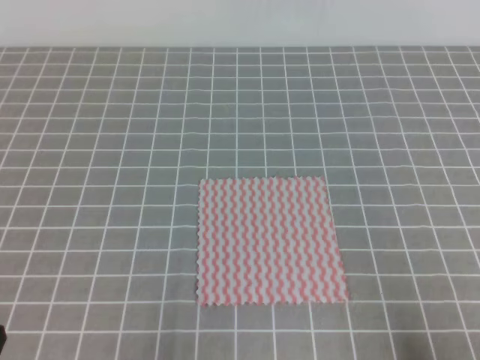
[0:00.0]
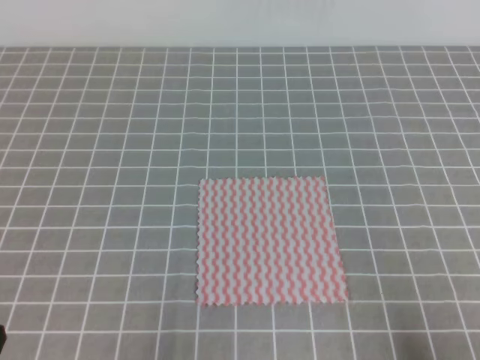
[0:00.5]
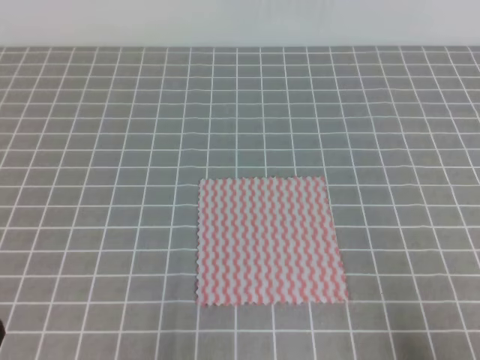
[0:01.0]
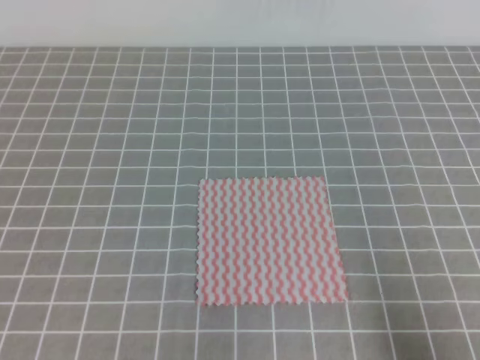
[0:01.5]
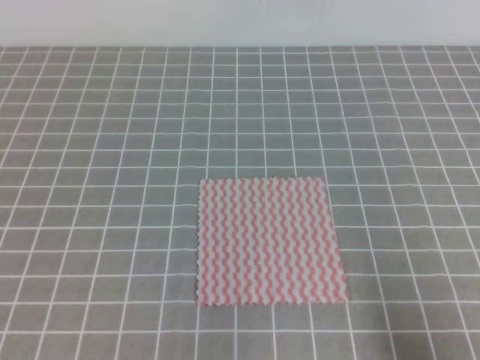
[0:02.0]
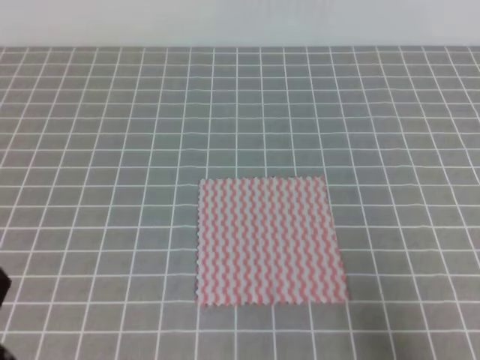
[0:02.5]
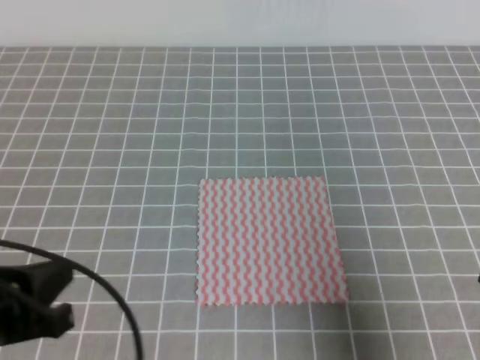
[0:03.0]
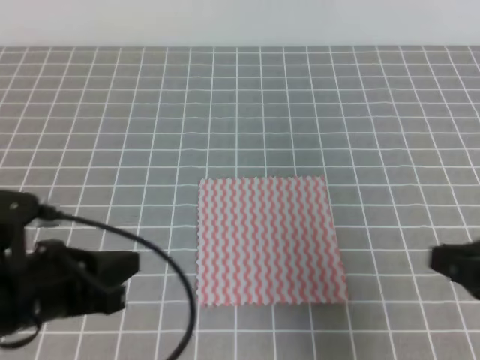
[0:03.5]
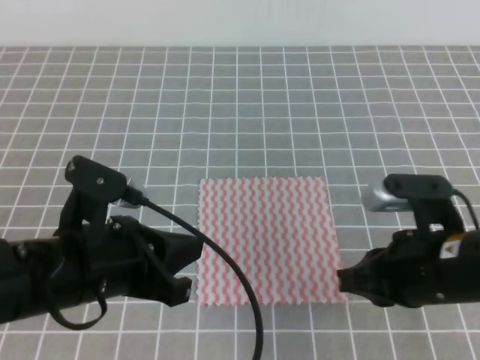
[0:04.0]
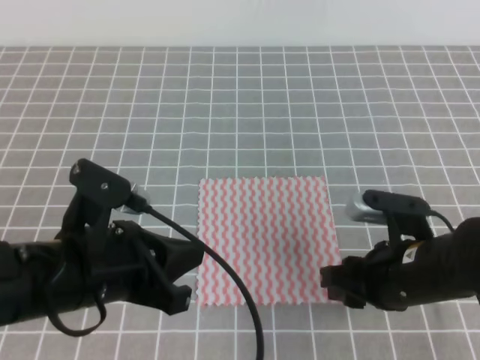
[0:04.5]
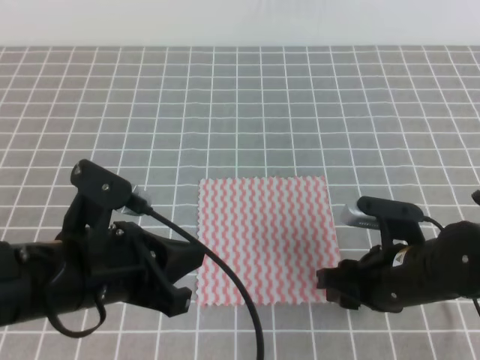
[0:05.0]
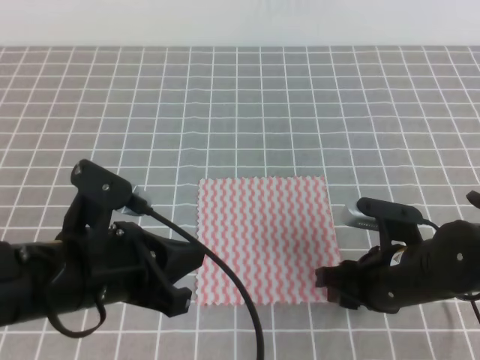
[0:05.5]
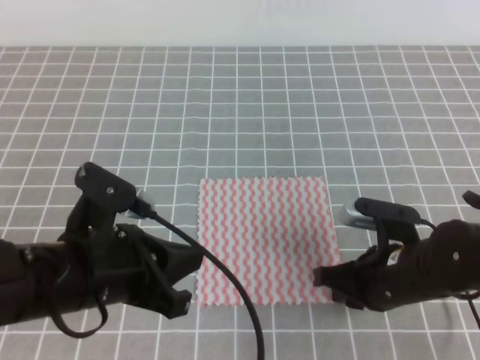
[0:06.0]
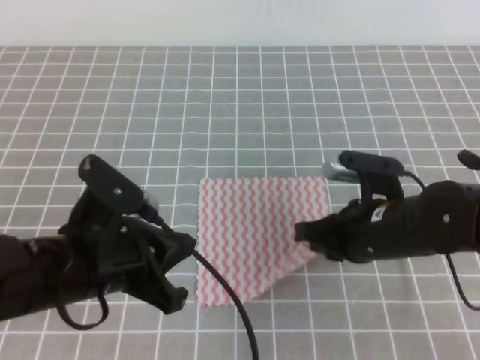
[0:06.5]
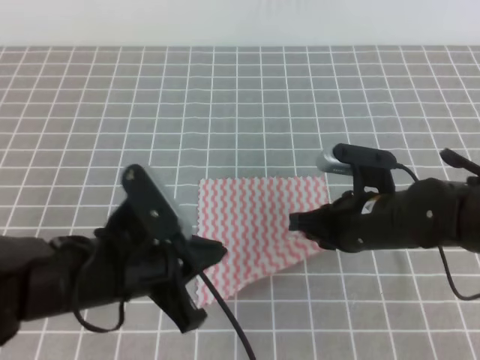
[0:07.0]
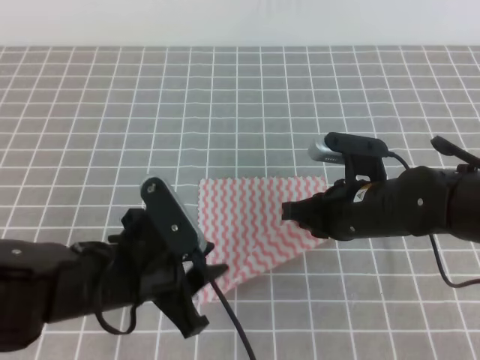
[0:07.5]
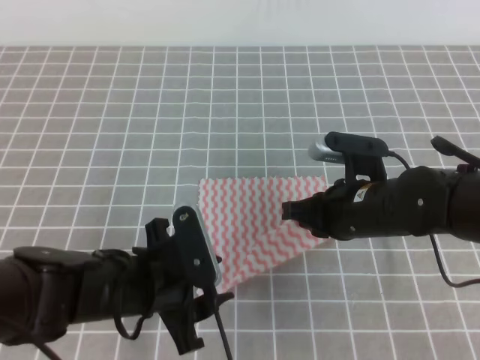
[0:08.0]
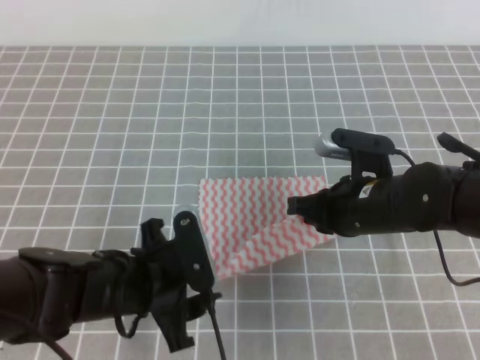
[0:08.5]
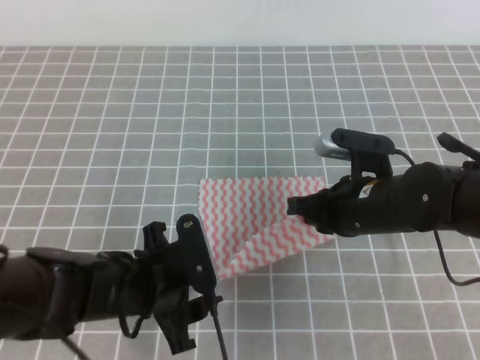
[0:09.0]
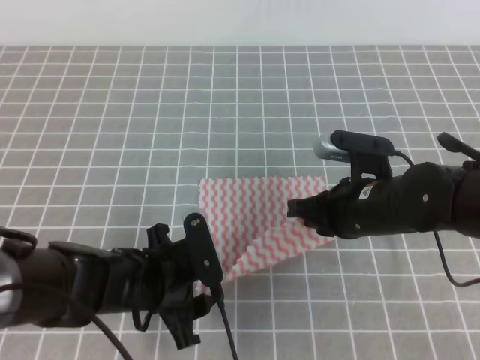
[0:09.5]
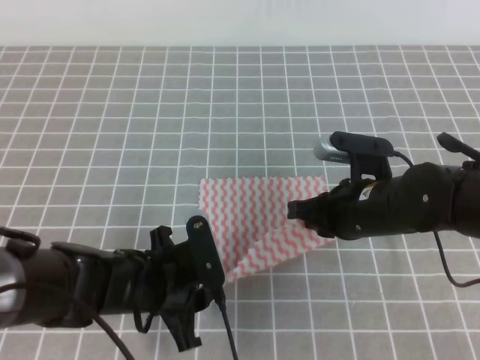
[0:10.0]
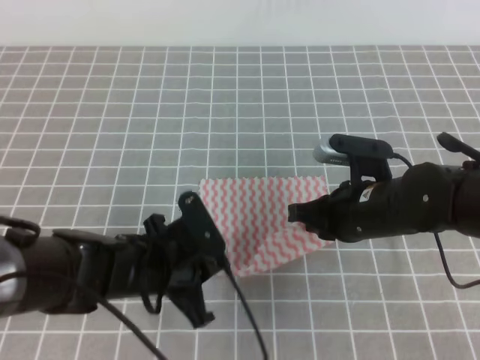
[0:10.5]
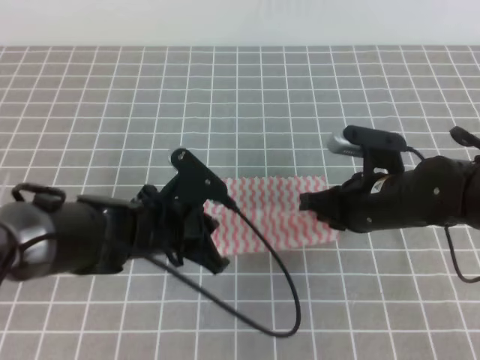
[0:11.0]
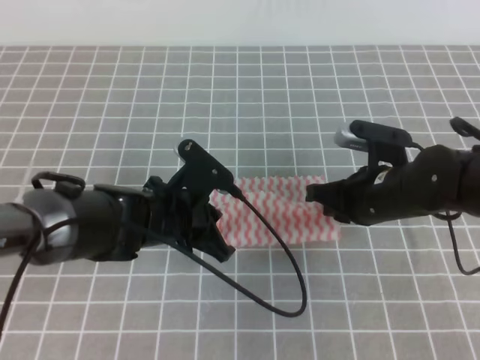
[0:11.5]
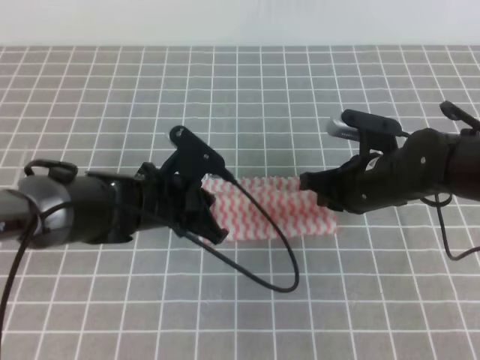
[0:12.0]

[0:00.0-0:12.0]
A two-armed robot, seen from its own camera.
0:02.0 to 0:04.0: The left gripper shifts approximately 20 cm forward and to the right. Meanwhile the right gripper is displaced forward and to the left by about 20 cm.
0:04.0 to 0:06.0: The right gripper moves downward, approximately 10 cm, and opens and closes again.
0:06.0 to 0:08.0: The left gripper is displaced downward by about 5 cm, and opens up. Meanwhile the right gripper shifts roughly 5 cm forward.
0:08.0 to 0:10.0: The left gripper closes its fingers.
0:10.0 to 0:12.0: The left gripper travels forward by roughly 10 cm, and closes its fingers.

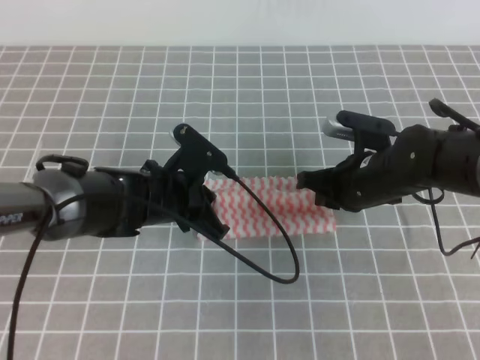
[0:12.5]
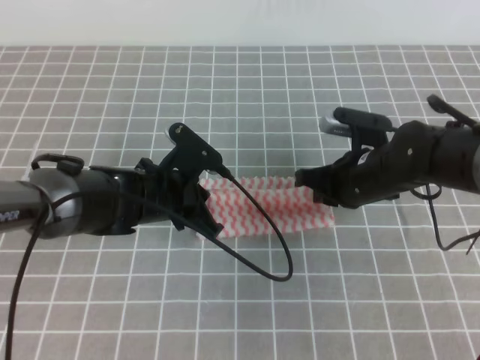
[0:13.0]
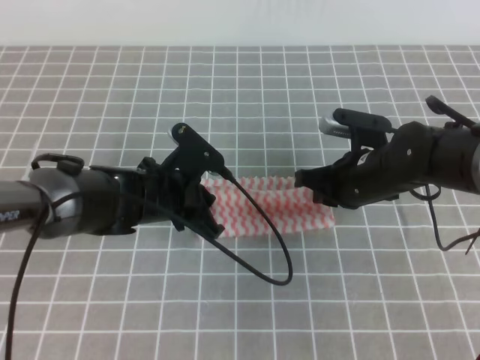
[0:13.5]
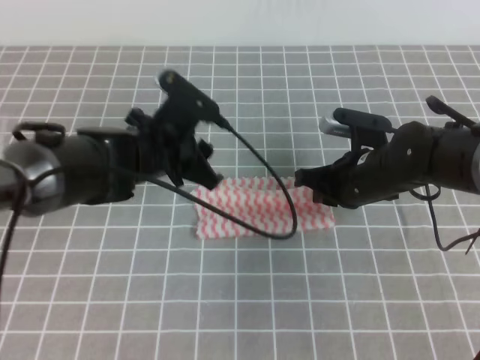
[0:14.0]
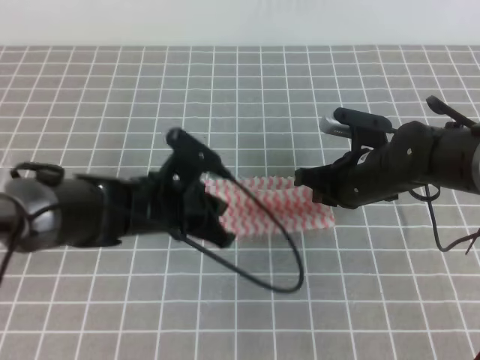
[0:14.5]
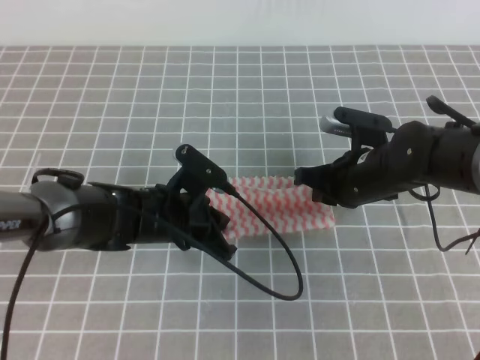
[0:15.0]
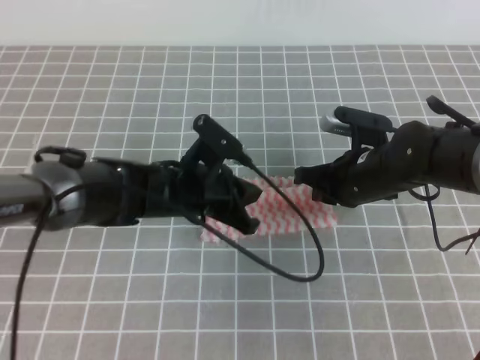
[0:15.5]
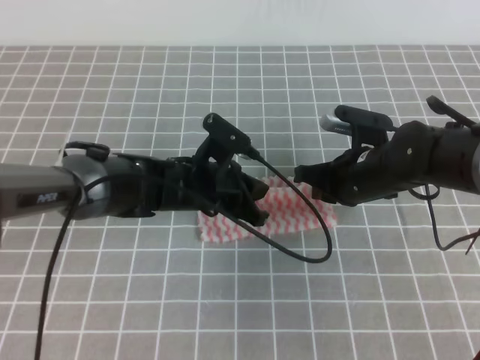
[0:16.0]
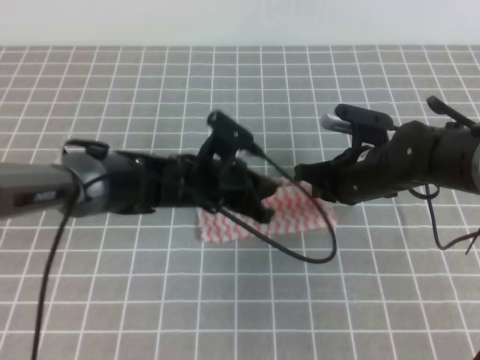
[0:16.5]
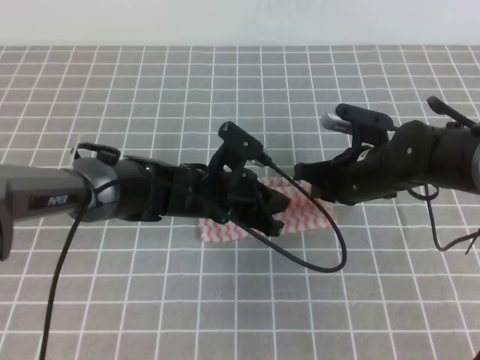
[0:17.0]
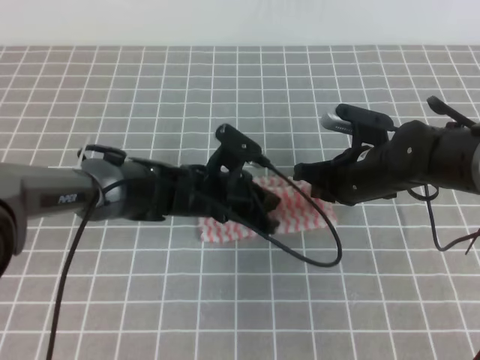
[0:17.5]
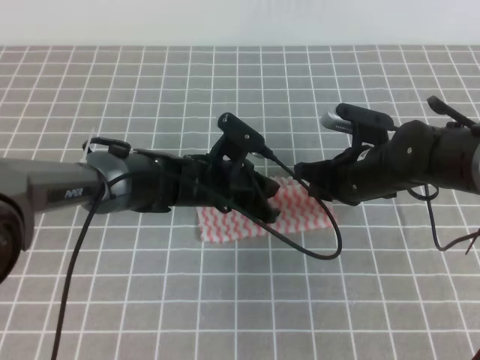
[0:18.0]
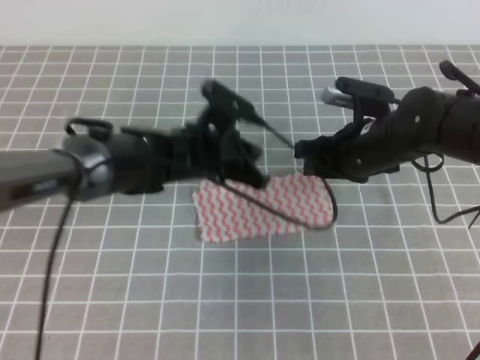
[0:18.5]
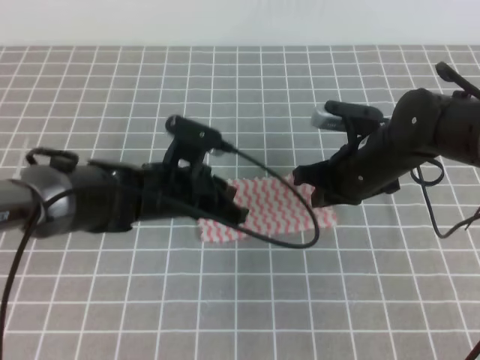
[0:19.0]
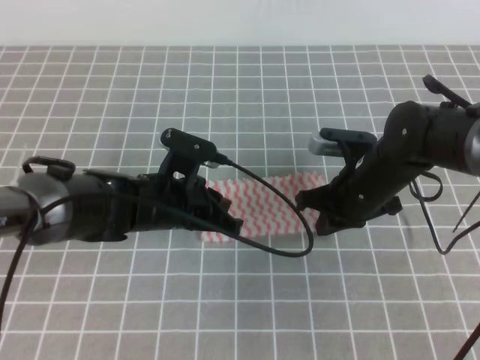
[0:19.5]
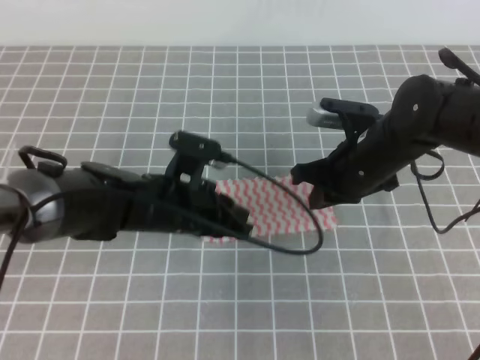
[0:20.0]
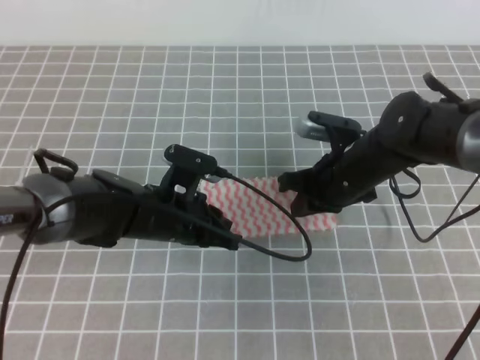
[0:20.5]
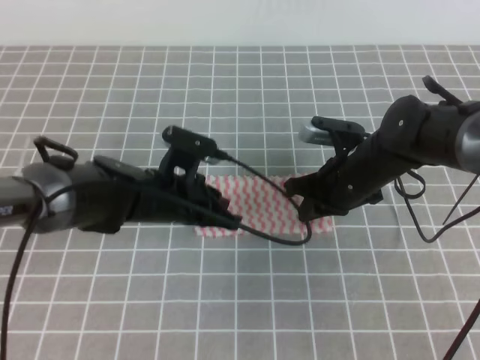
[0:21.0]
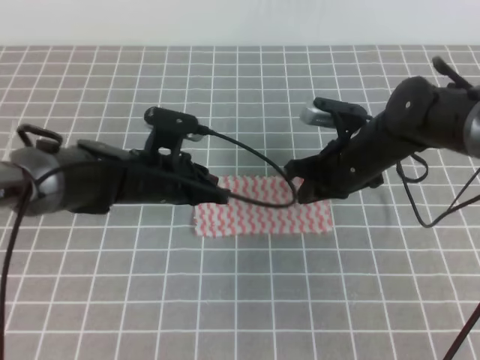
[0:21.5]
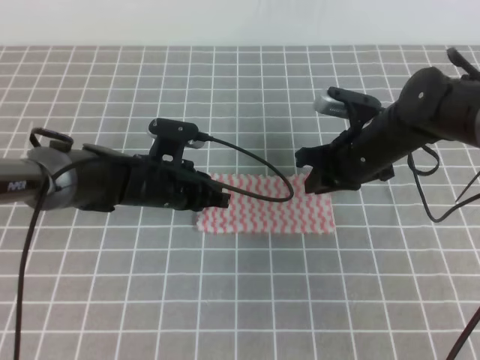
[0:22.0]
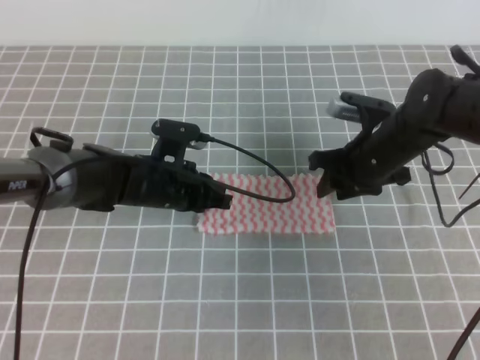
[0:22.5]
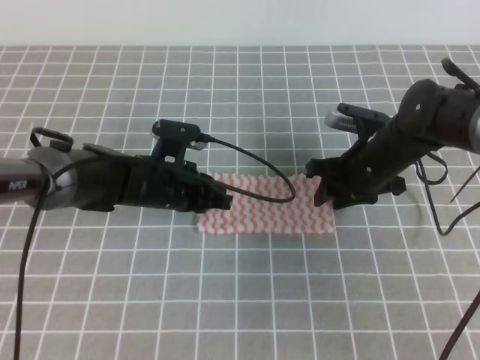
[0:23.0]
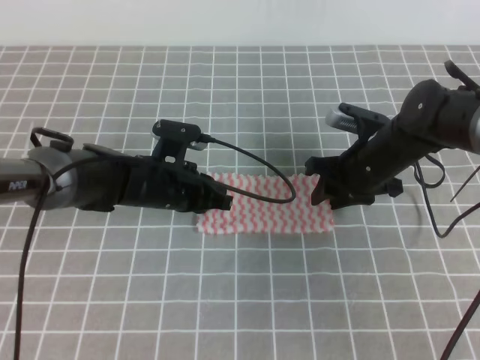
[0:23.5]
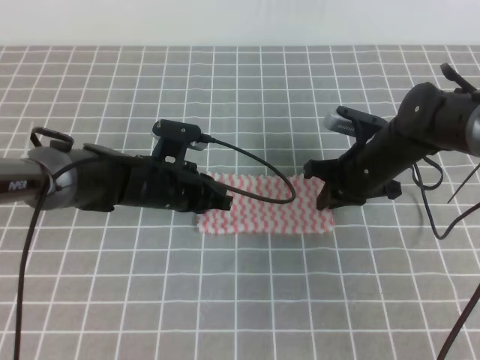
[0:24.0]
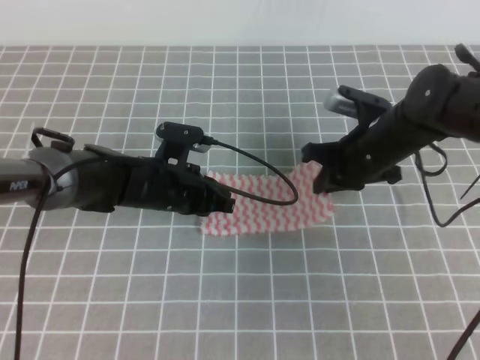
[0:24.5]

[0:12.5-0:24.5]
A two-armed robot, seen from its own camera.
0:12.5 to 0:14.5: The left gripper opens and closes again.
0:14.5 to 0:16.5: The left gripper shifts by approximately 5 cm.
0:16.5 to 0:18.5: The right gripper opens.
0:18.5 to 0:20.5: The left gripper moves backward, some 5 cm. The right gripper closes.
0:20.5 to 0:22.5: The left gripper heads forward, covering about 5 cm; the right gripper opens.
0:22.5 to 0:24.5: The right gripper closes.

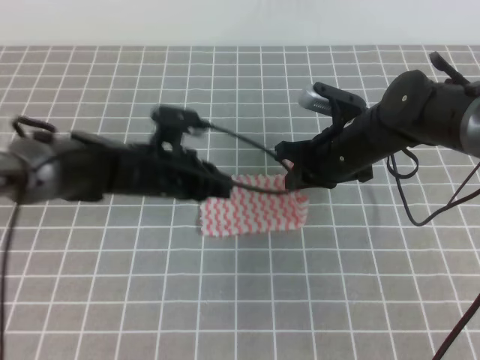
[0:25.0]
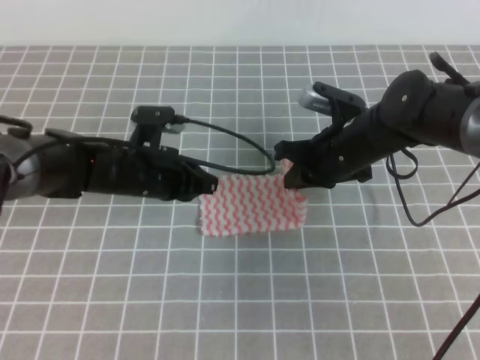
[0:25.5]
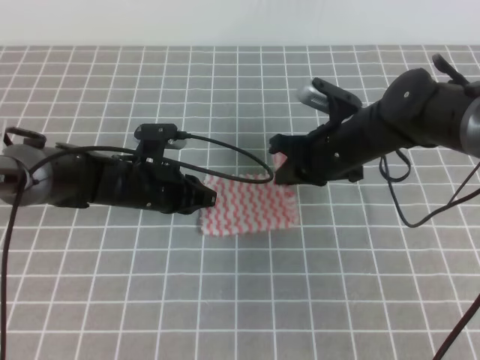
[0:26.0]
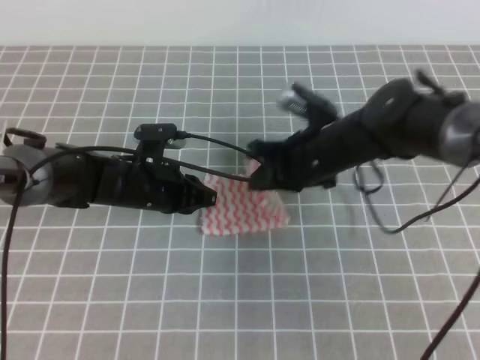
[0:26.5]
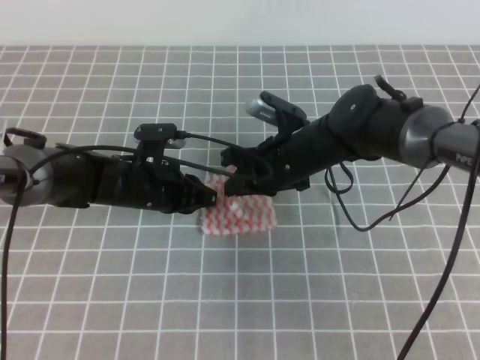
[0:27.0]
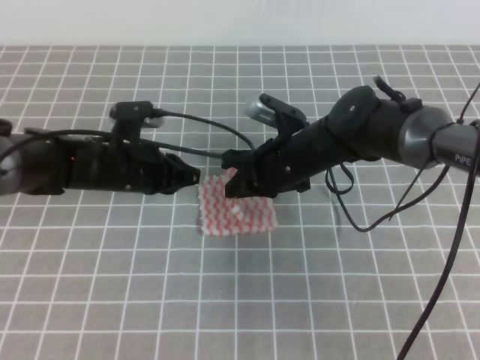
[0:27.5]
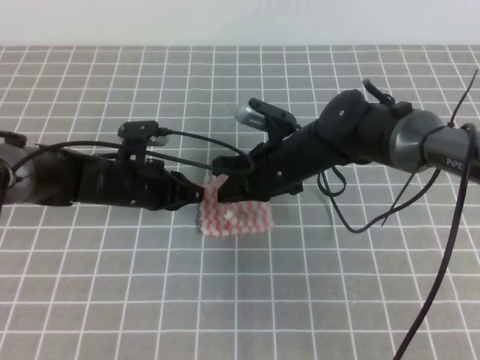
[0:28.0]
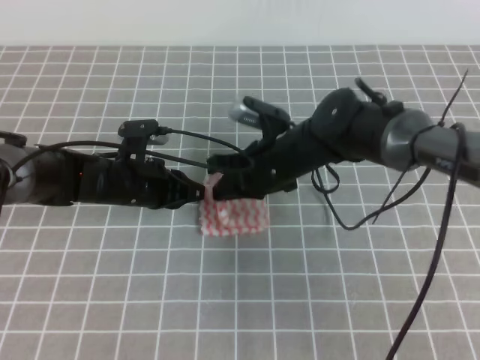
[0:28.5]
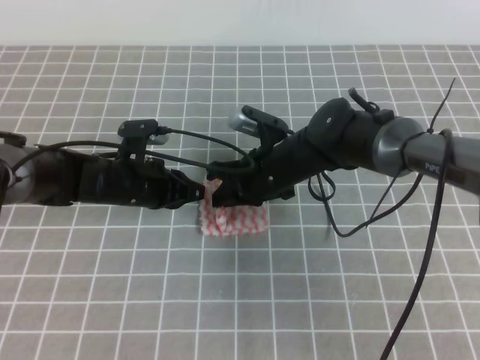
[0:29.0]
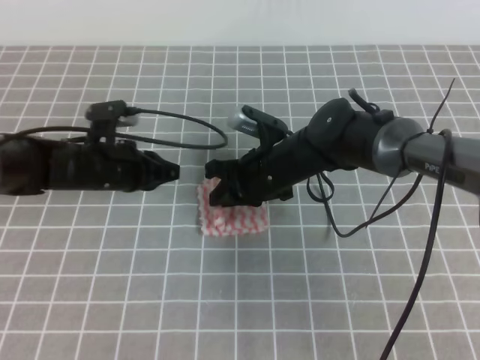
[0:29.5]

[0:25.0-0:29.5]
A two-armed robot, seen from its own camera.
0:25.0 to 0:27.0: The right gripper goes roughly 5 cm to the left.
0:27.0 to 0:29.5: The right gripper opens up.
